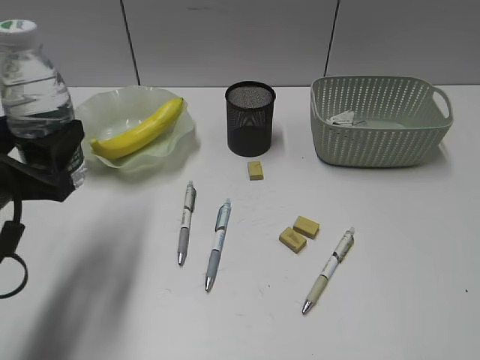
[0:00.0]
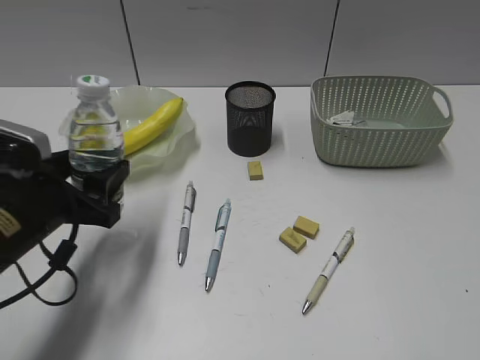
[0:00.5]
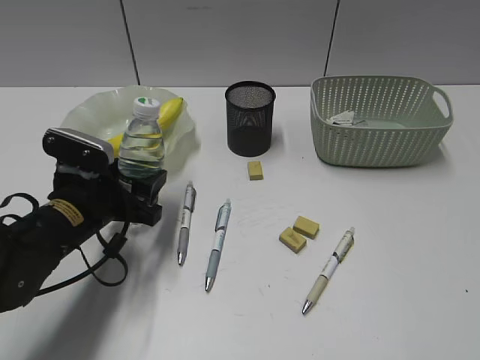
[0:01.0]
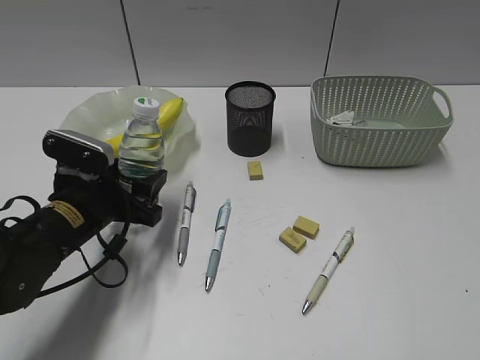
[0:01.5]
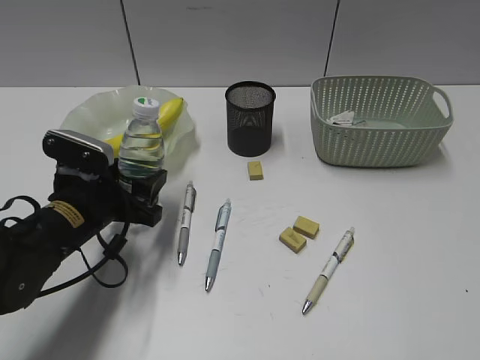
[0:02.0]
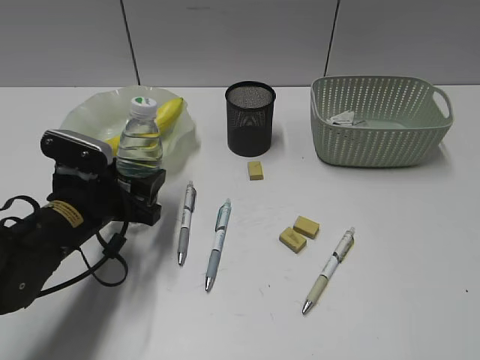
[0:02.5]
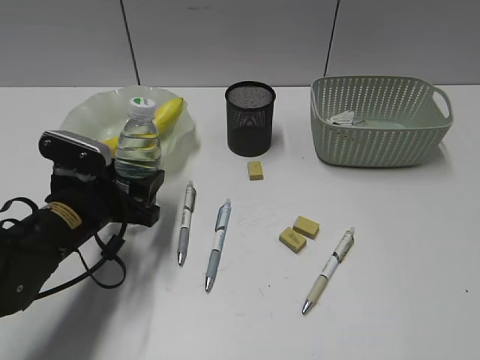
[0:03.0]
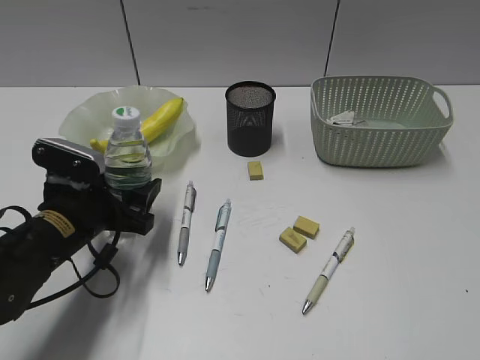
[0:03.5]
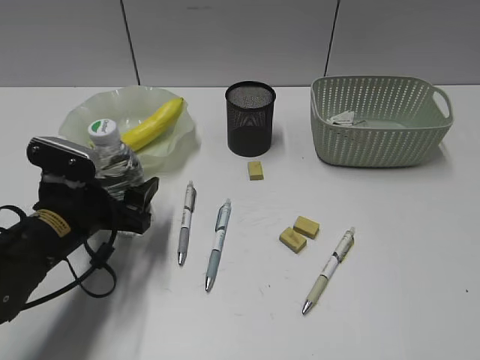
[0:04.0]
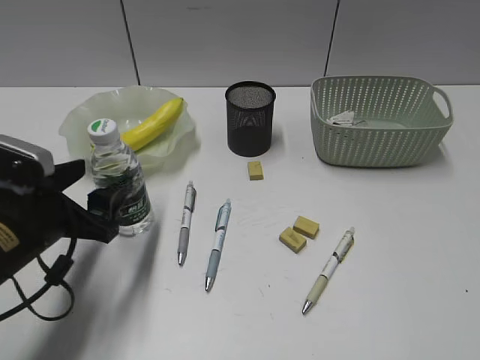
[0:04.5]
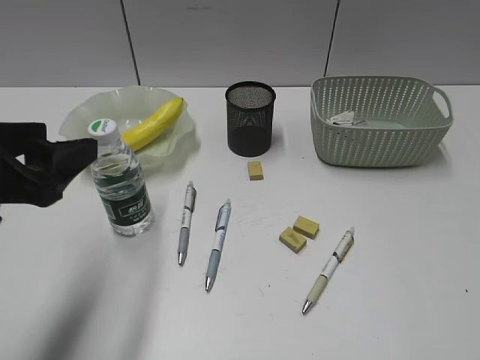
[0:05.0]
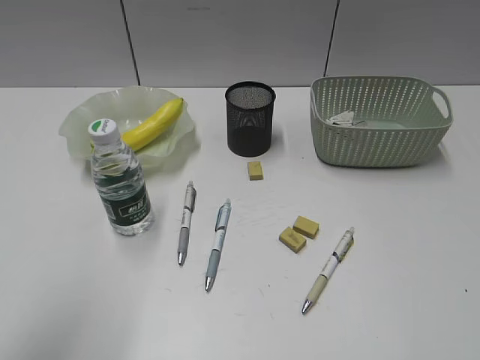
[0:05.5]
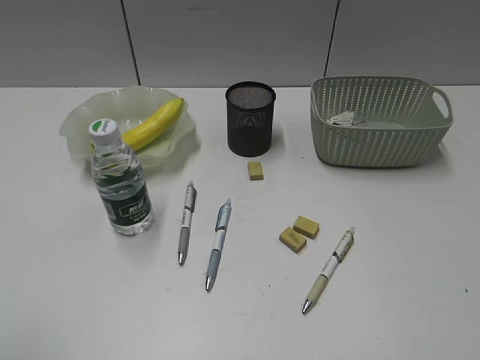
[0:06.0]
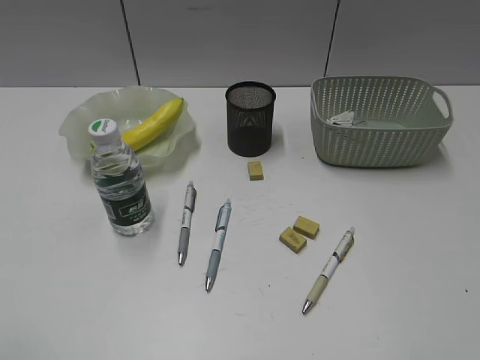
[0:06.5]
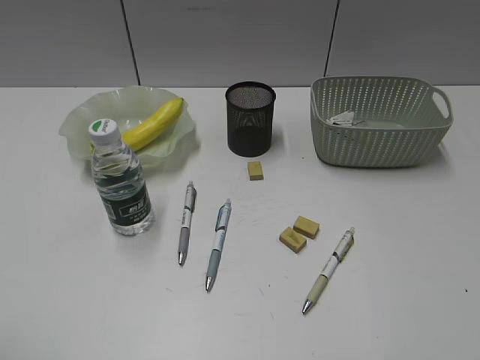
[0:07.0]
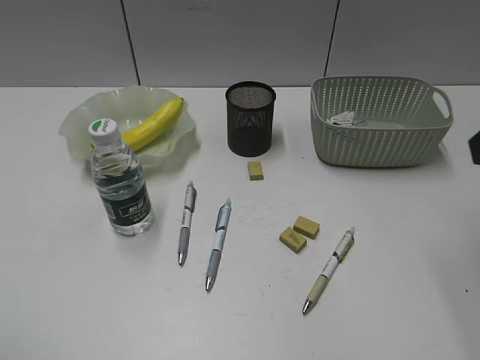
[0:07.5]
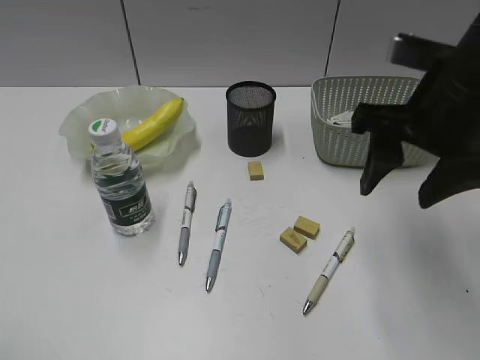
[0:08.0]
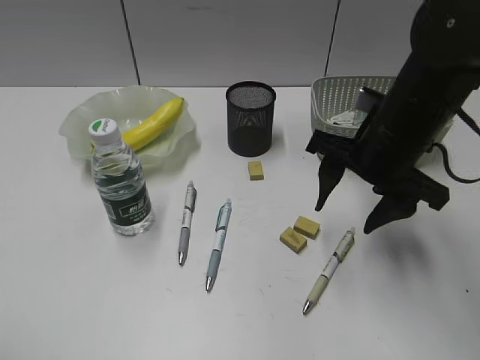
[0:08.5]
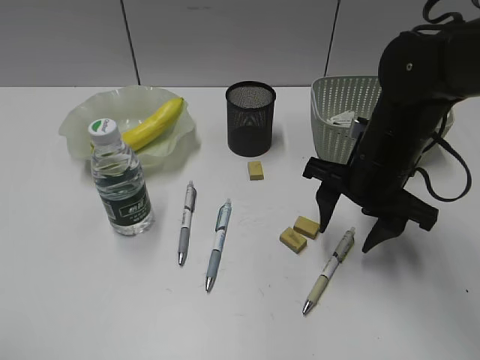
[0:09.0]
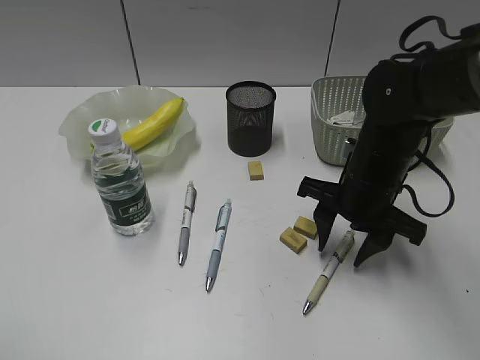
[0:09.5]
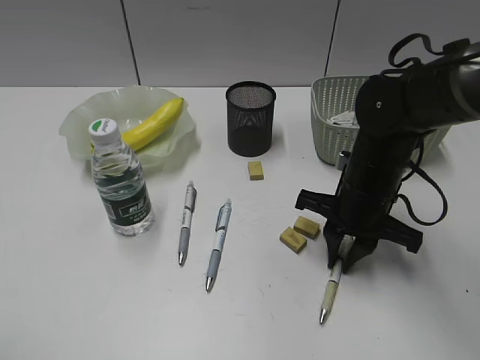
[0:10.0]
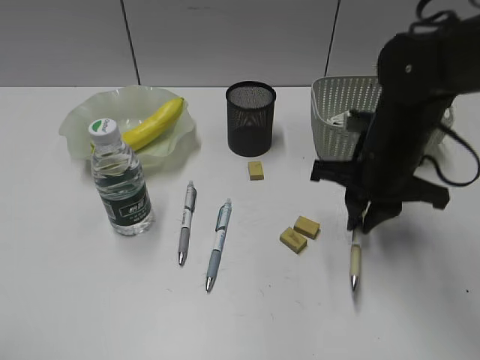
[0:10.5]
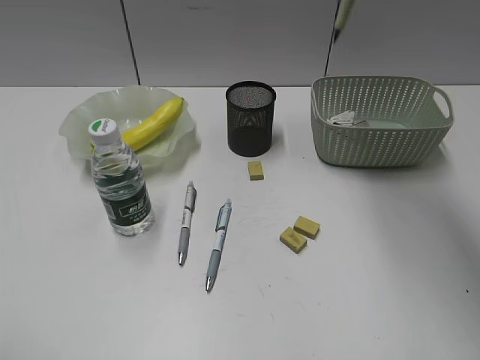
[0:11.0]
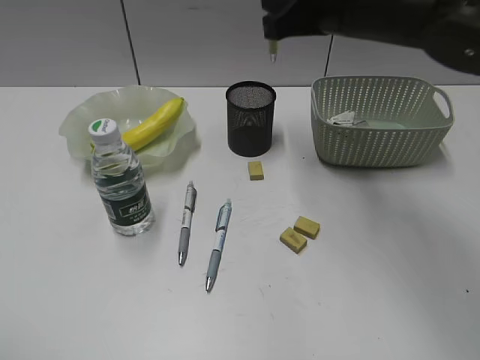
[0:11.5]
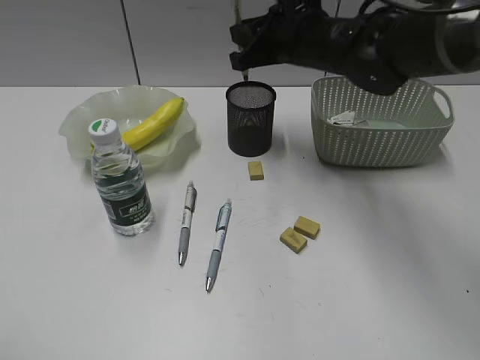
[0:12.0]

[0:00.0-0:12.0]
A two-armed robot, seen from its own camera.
Step, 0:00.0 to 0:04.5: Stand the bottle with left gripper.
Step, 0:05.0 to 0:10.0: Grasp the yellow pen with right gripper.
0:00.0 to 0:02.0: The left gripper moves downward, forward and to the right, some 15 cm.
0:02.0 to 0:04.0: The grippers stay close to where they were, moving slightly.
0:04.0 to 0:06.0: The left gripper travels backward, upward and to the left by about 35 cm.
0:06.0 to 0:08.0: The right gripper shifts approximately 30 cm forward and to the left.
0:08.0 to 0:10.0: The right gripper heads downward, covering about 15 cm, and closes its fingers.
0:10.0 to 0:12.0: The right gripper shifts approximately 15 cm upward, forward and to the left.

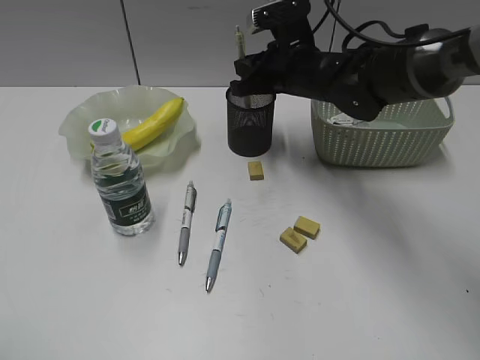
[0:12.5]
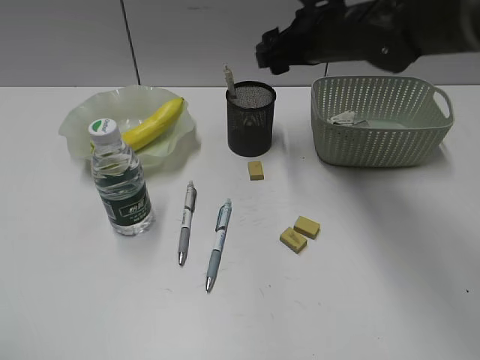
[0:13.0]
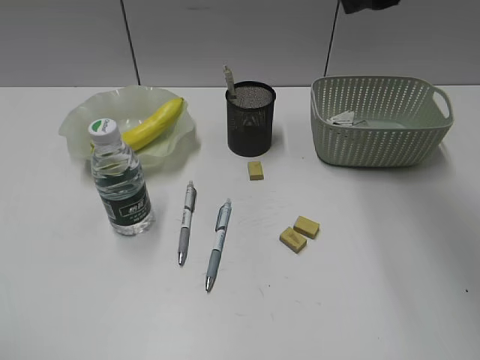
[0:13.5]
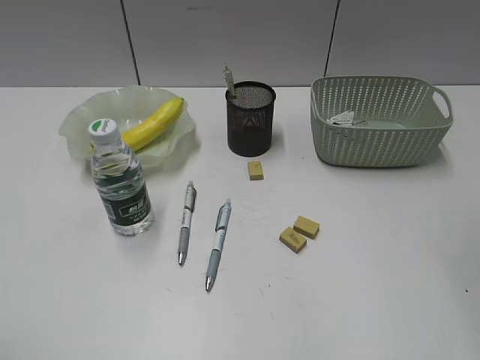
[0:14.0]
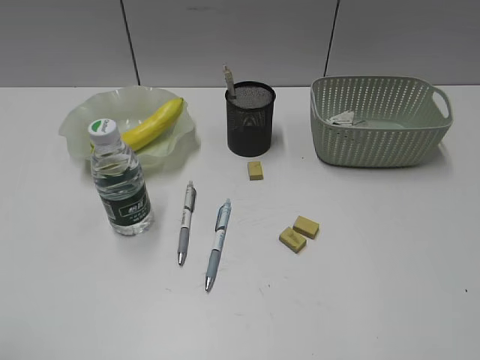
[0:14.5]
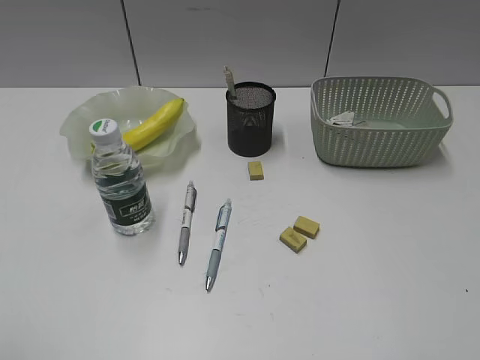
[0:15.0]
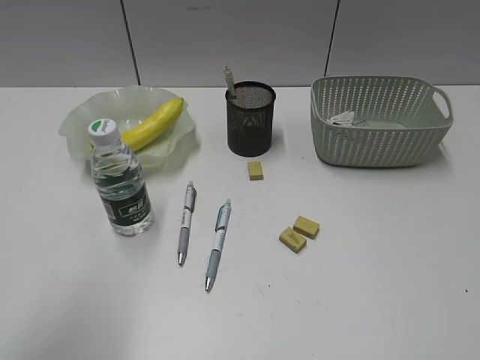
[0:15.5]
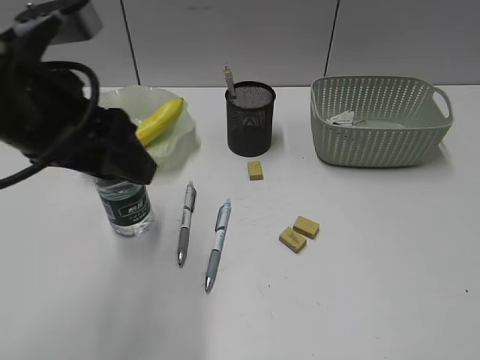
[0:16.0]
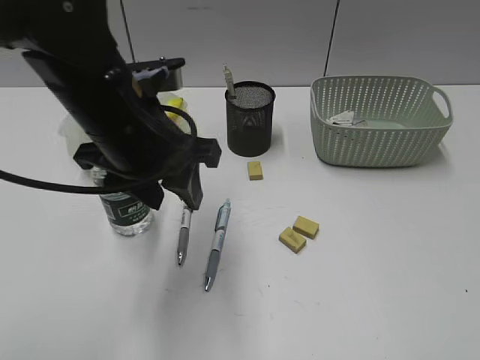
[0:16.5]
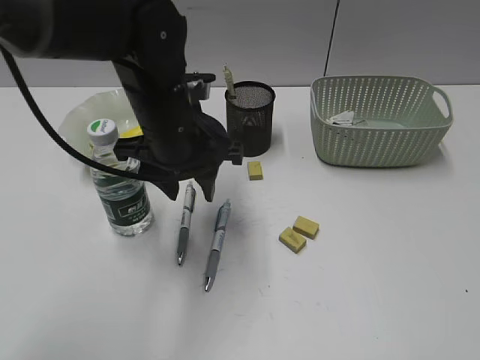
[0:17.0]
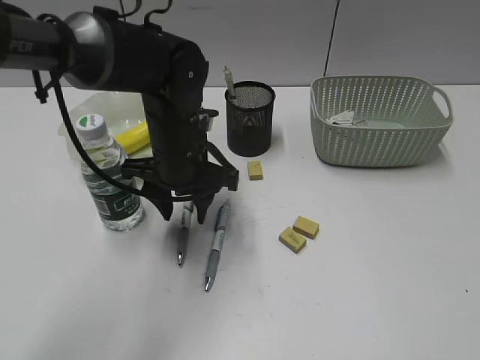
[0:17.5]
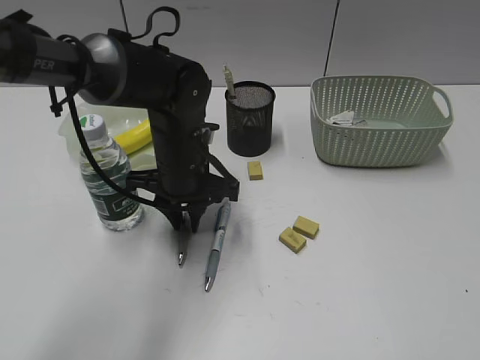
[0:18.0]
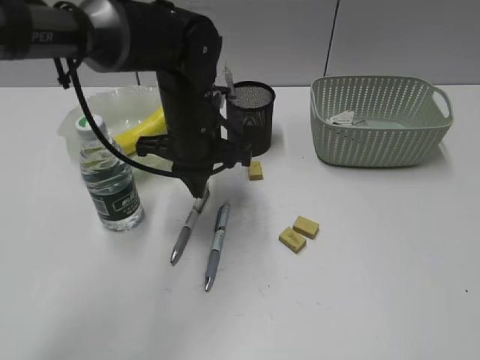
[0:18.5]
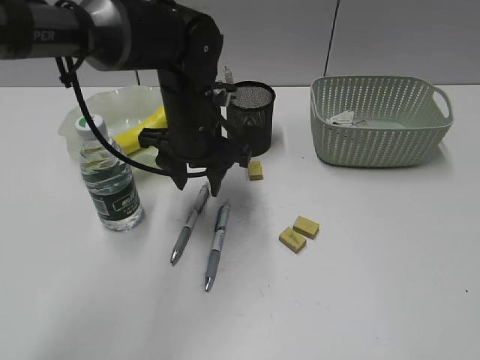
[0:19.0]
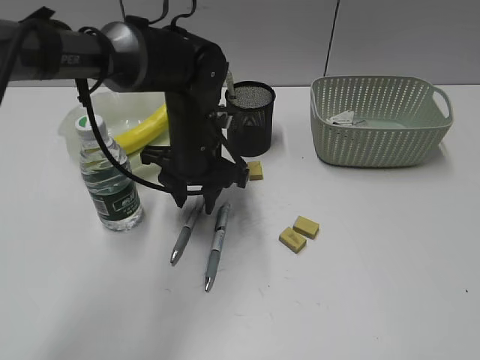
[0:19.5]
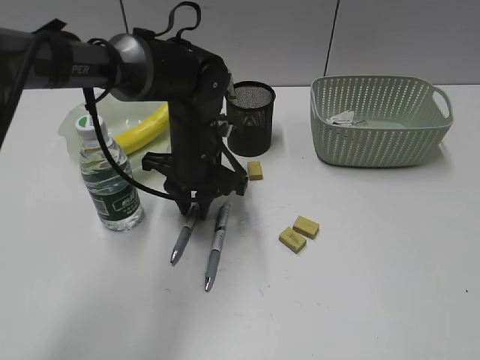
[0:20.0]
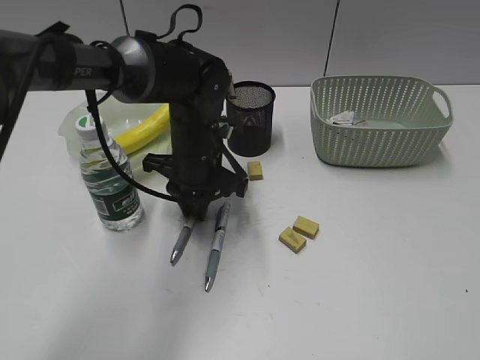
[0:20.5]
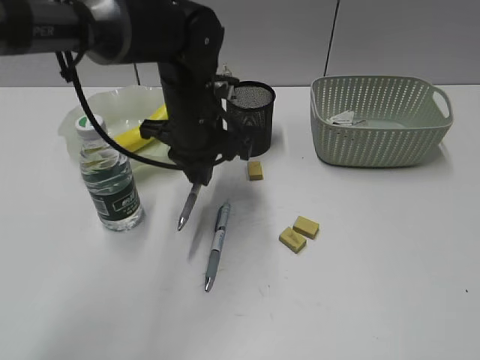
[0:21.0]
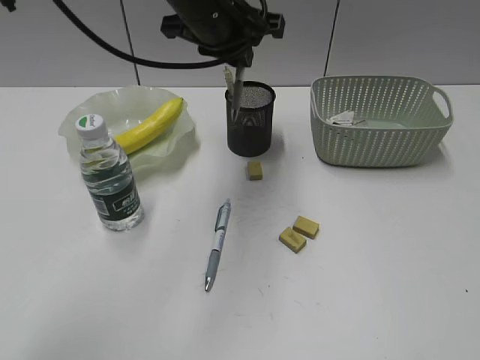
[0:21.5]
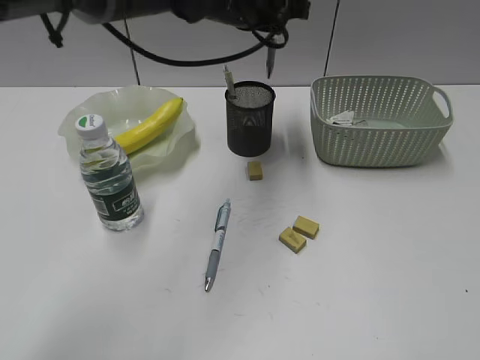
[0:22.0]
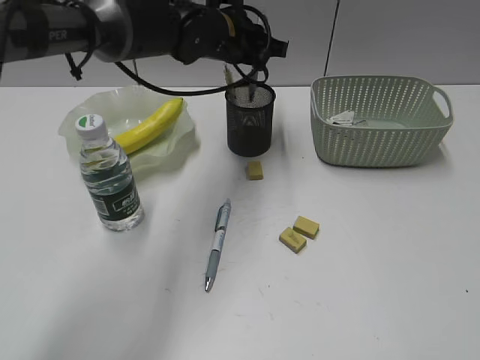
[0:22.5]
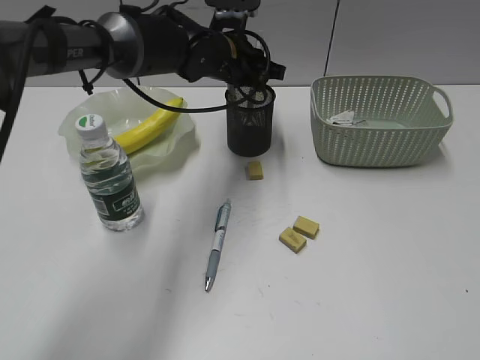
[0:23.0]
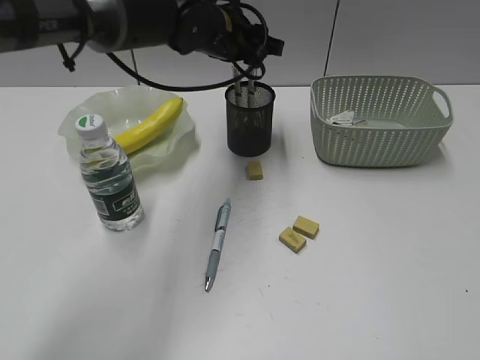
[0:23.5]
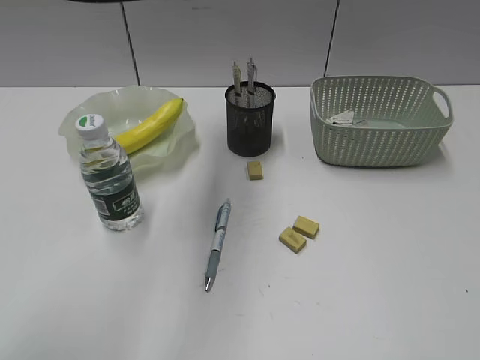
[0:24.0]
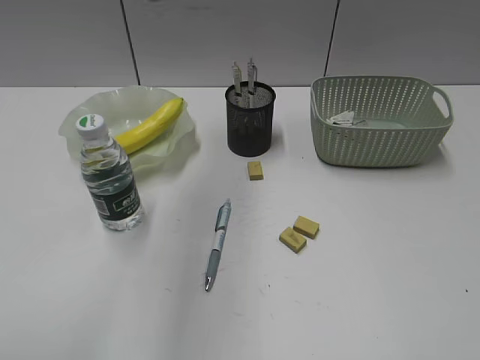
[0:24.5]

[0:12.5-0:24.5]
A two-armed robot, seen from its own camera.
Step, 0:13.0 to 0:20.5: Grasp the gray pen with left gripper.
Step, 0:21.0 to 0:23.0: Place the gray pen in pen holder with left gripper.
0:12.5 to 0:14.5: The right gripper travels backward, to the right and upward by about 40 cm, and opens up.
0:14.5 to 0:16.5: The left gripper moves forward and to the right, roughly 35 cm. Meanwhile the right gripper shifts about 5 cm backward.
0:16.5 to 0:18.5: The left gripper goes about 10 cm forward and downward, and closes its fingers.
0:18.5 to 0:20.5: The left gripper opens and closes again.
0:20.5 to 0:22.5: The left gripper goes roughly 15 cm upward and forward.
0:22.5 to 0:24.5: The left gripper goes approximately 25 cm upward, backward and to the left, and opens its fingers.

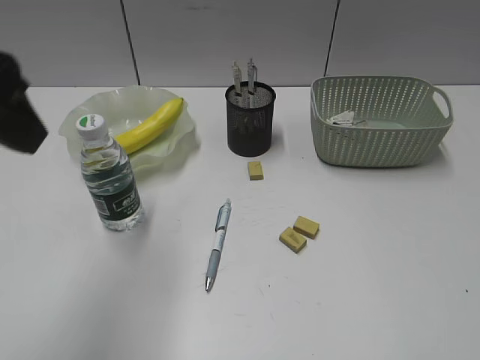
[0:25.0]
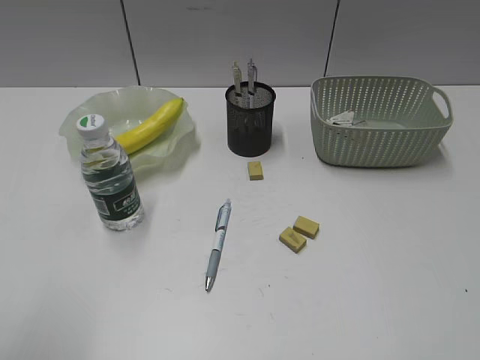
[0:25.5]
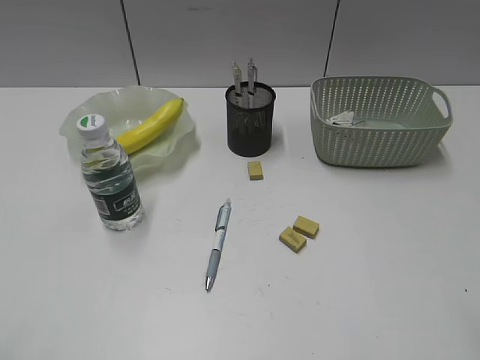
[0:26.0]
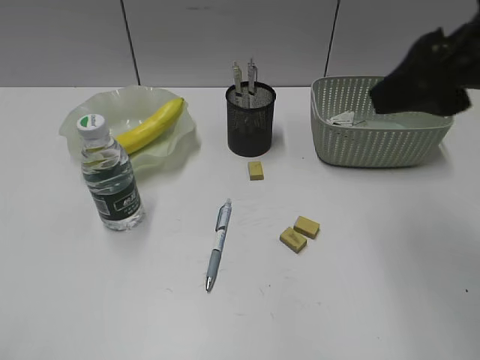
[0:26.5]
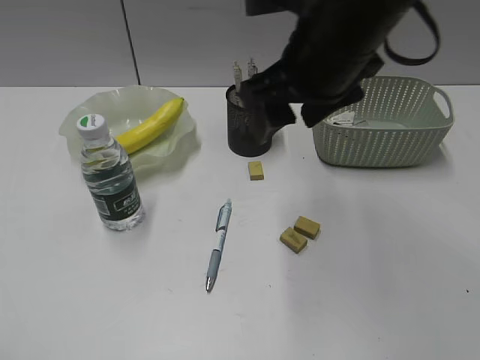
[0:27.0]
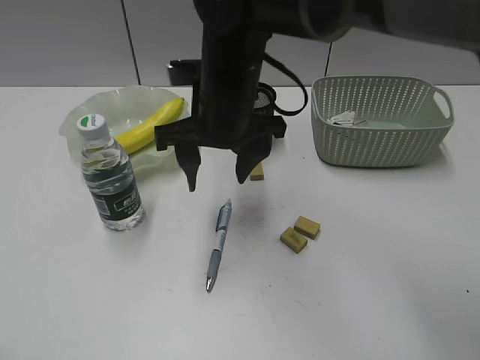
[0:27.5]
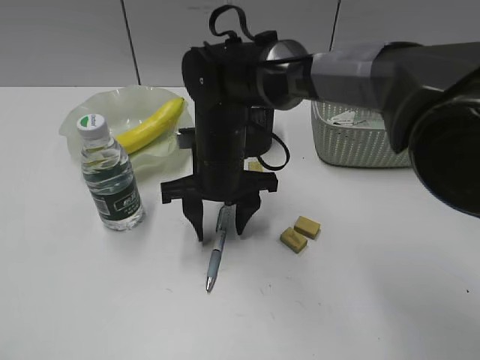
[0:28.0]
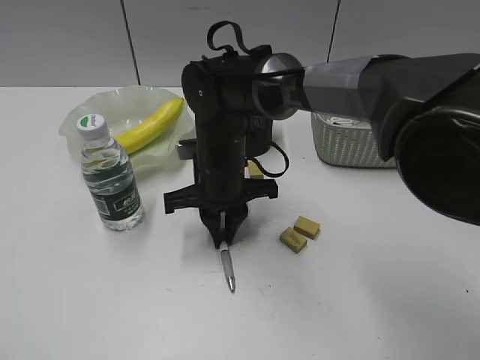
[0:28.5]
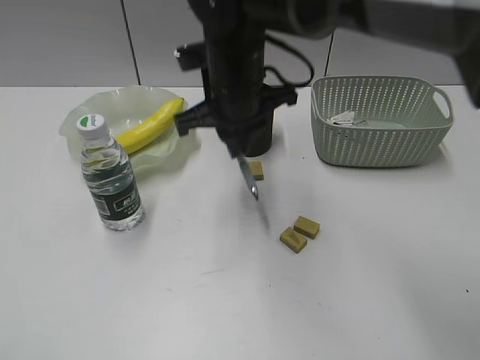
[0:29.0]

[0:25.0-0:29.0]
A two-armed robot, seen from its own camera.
Step, 0:25.0 to 0:28.5: Grasp the blue pen with right gripper.
0:25.0 to 0:27.0: The right gripper moves forward and to the left, about 40 cm. Meanwhile the left gripper is displaced backward and to the left by about 25 cm.
0:27.0 to 0:29.0: The right gripper goes roughly 15 cm to the left, downward and forward, and closes up.
